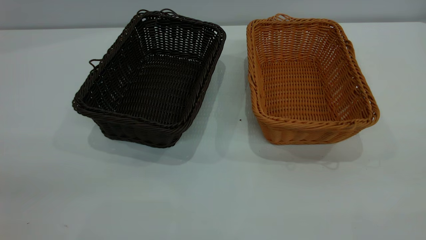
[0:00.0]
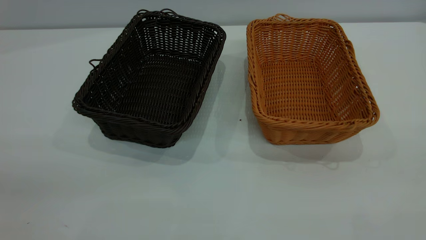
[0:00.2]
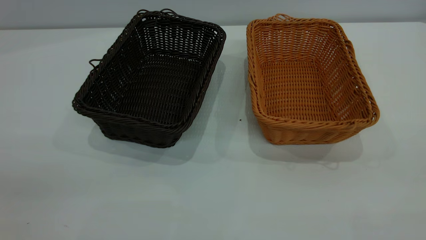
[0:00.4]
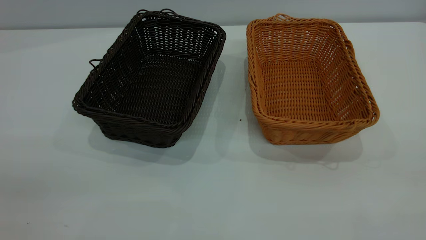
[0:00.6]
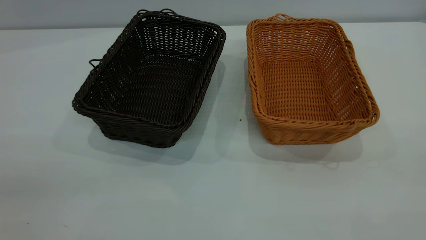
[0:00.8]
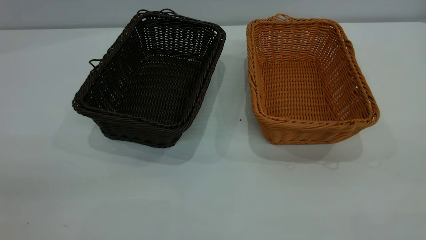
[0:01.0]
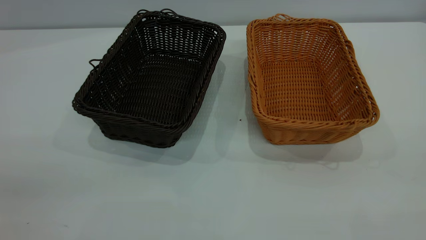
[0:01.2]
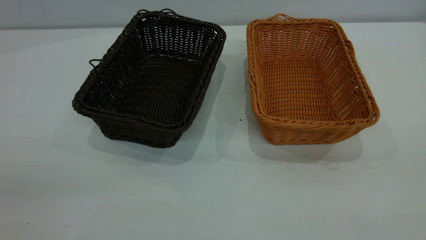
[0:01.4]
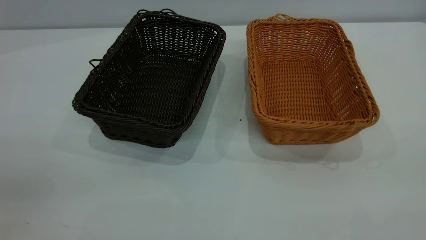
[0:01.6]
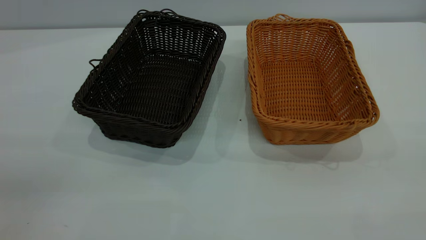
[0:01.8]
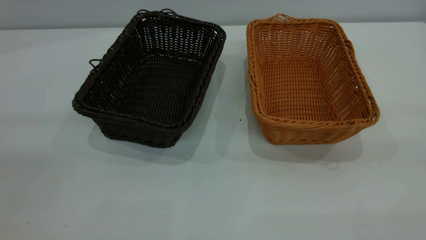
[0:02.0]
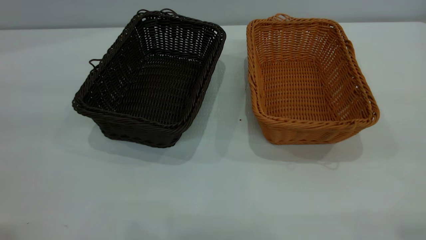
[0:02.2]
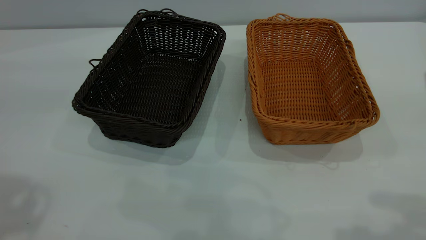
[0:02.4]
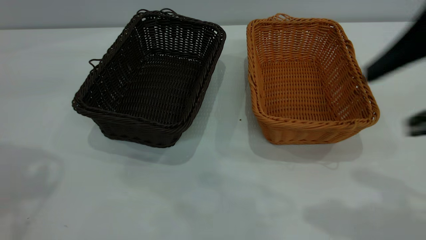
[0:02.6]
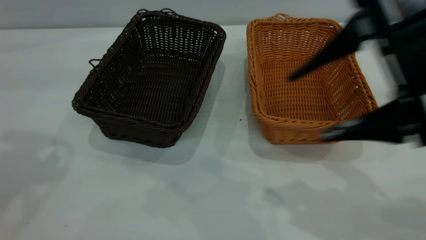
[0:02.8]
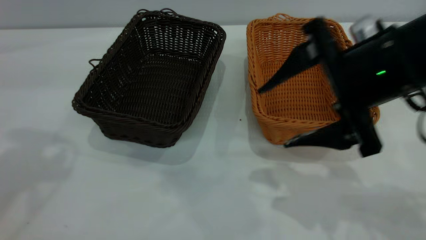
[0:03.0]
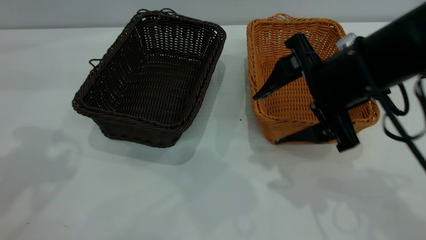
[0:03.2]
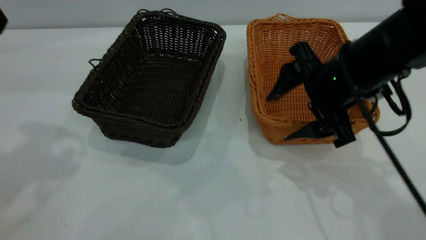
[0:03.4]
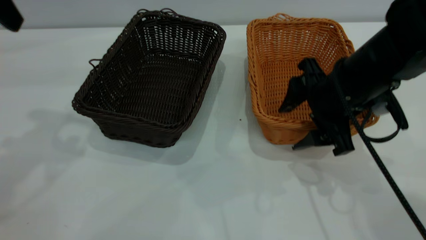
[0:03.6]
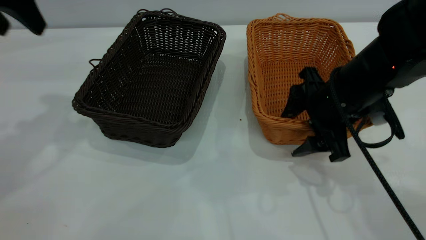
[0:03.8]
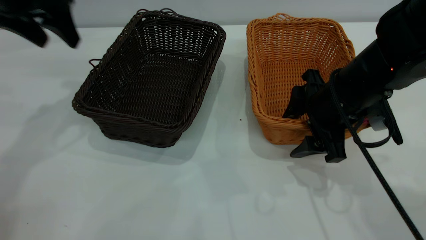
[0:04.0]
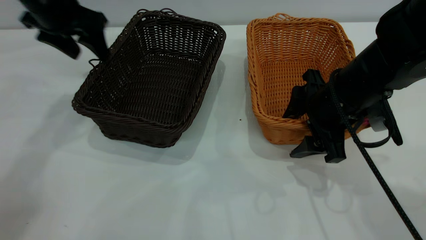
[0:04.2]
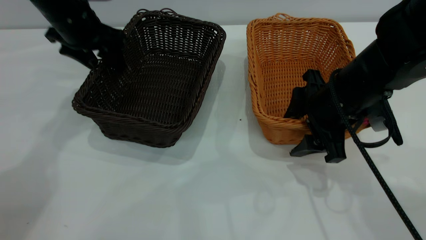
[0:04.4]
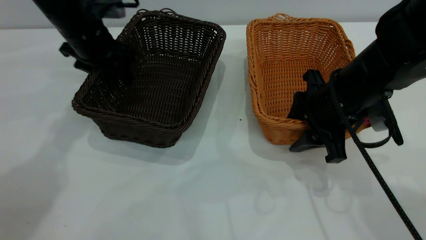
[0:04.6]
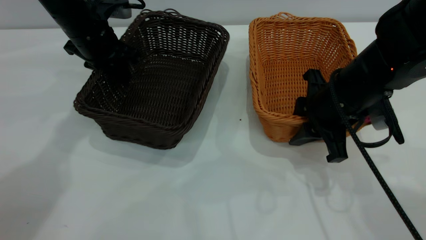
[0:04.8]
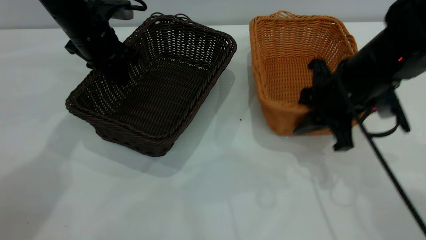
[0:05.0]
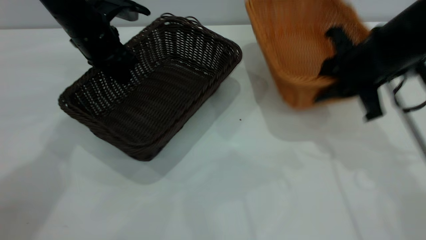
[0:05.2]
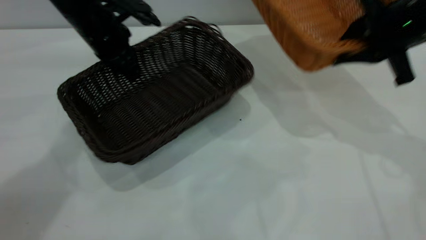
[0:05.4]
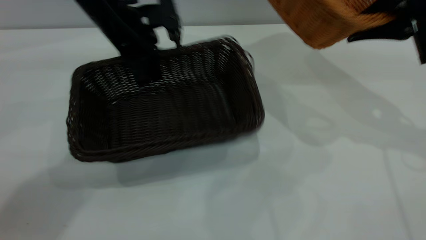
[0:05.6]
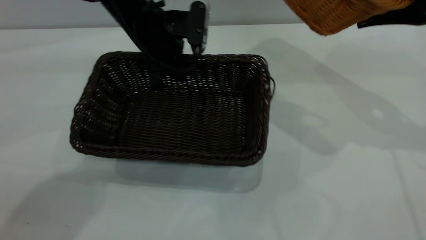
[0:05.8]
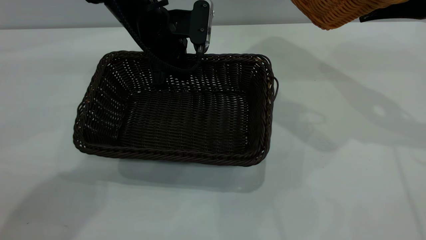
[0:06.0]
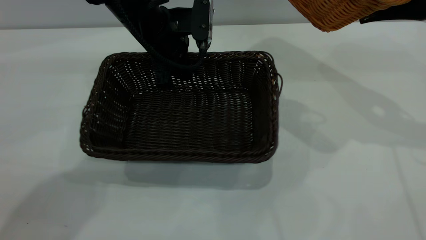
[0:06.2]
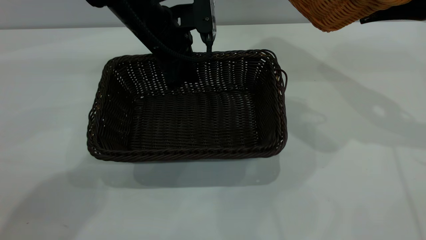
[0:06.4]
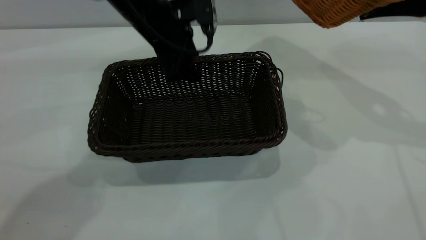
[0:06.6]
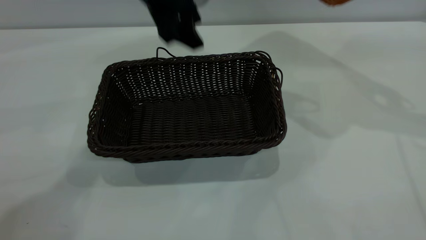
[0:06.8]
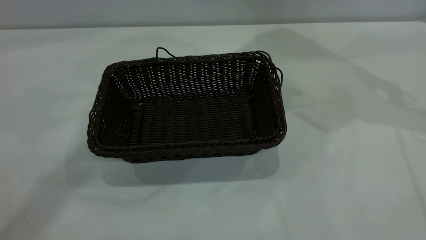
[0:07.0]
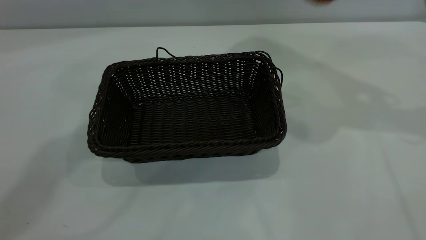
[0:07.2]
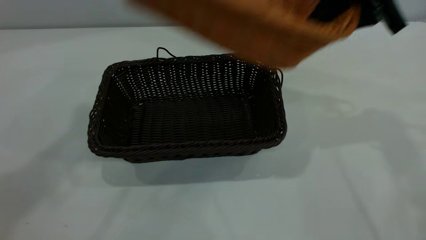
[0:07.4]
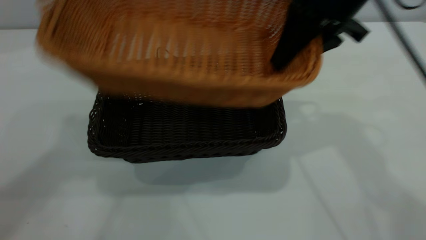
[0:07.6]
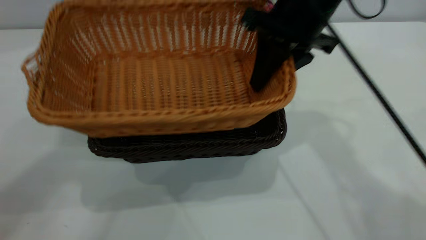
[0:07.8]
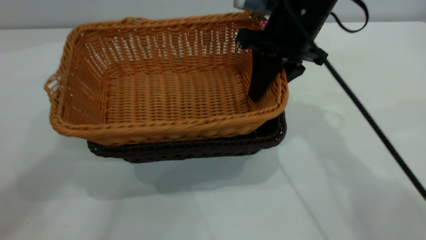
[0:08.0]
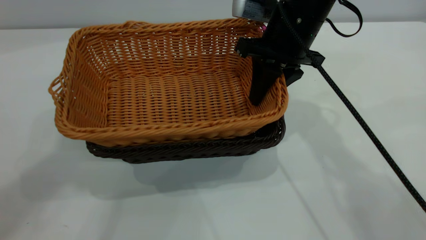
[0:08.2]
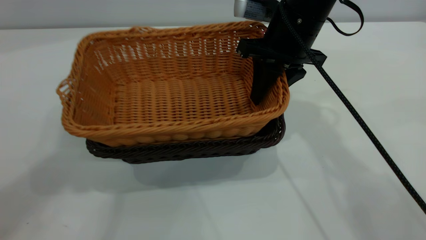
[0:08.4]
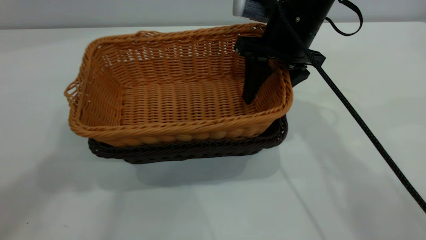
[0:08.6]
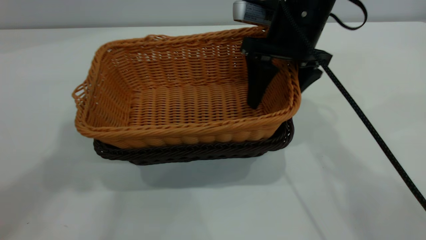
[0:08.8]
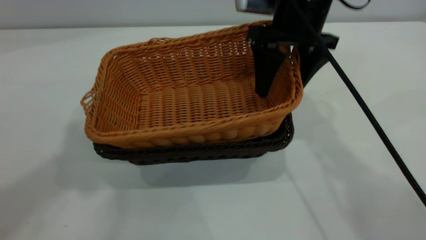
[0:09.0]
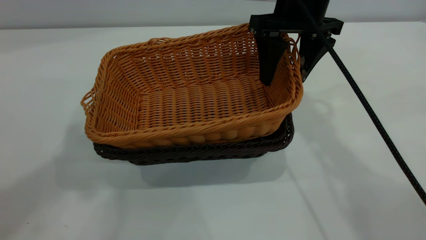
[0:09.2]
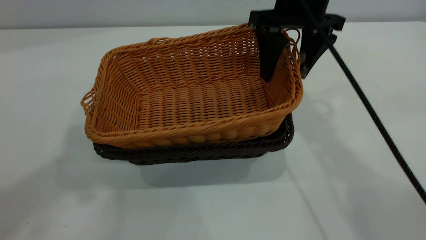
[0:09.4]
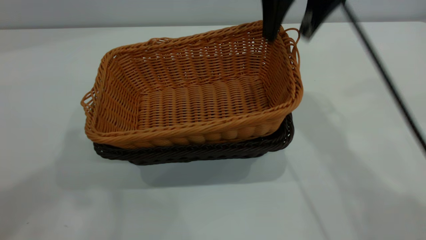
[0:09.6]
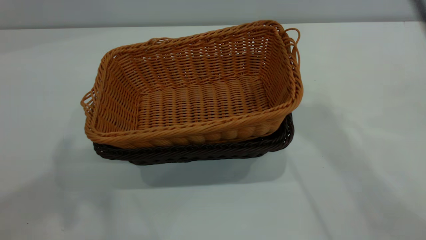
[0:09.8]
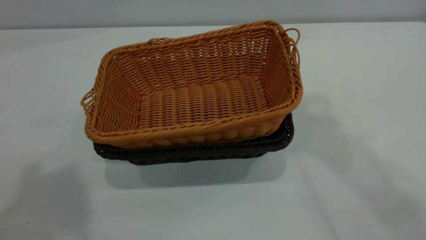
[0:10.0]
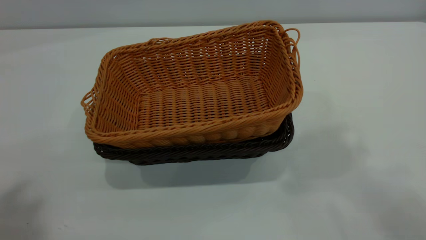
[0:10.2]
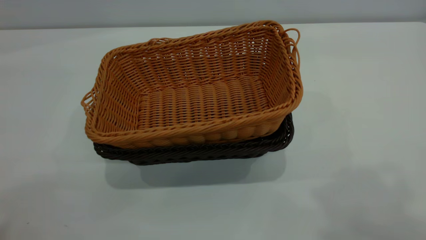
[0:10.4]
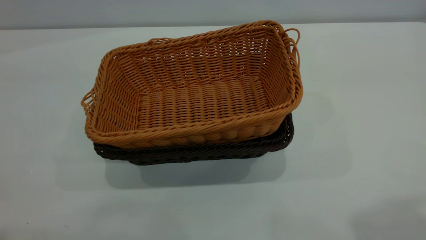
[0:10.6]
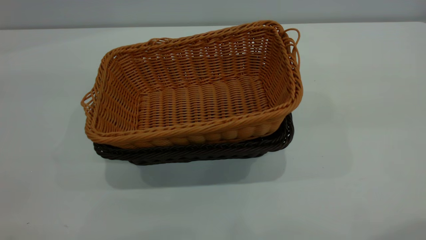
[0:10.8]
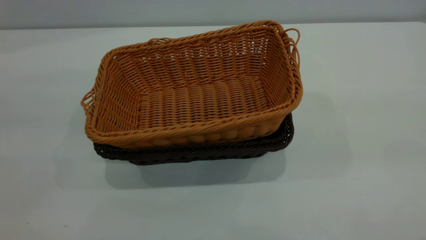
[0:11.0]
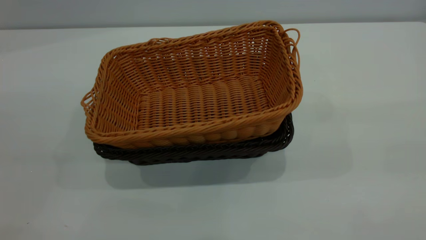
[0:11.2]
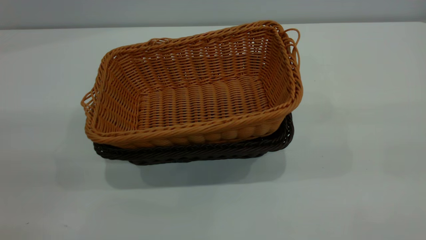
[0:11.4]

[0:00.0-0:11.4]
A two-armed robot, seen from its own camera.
Task of the whole recording: the left gripper grasp the black basket and place it in the center of the table, the right gripper grasp the brown basket and place it inside the black one.
Step, 0:00.0 to 0:05.2: Pick up the light basket with the right gripper.
Step, 0:05.4 to 0:06.6: Move the dark basket to the center of view.
Step, 0:06.8 to 0:09.6: Place the light basket on the dark basket.
0:00.0 to 0:01.4: Neither gripper changes place.
0:01.4 to 0:02.8: The right gripper travels forward, downward and to the left by roughly 25 cm.
0:02.8 to 0:04.2: The left gripper heads forward and downward, covering roughly 25 cm; the right gripper heads downward and forward, covering roughly 15 cm.
0:04.2 to 0:05.6: The right gripper shifts approximately 15 cm upward and to the right, and closes its fingers. Meanwhile the left gripper heads to the right and downward, covering roughly 10 cm, and closes.
0:05.6 to 0:07.2: The right gripper changes place by approximately 5 cm; the left gripper travels upward by about 35 cm, and opens up.
0:07.2 to 0:08.6: The left gripper moves backward and upward, about 10 cm. Meanwhile the right gripper moves to the left and downward, about 20 cm, and opens.
0:08.6 to 0:10.0: The right gripper heads upward, covering some 30 cm, while the left gripper shifts about 10 cm backward.
0:10.0 to 0:11.4: The left gripper moves downward and backward, approximately 25 cm.

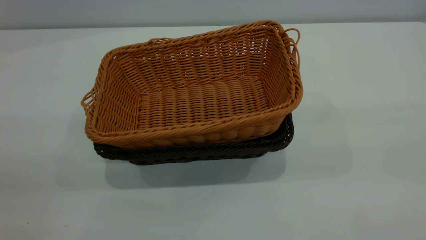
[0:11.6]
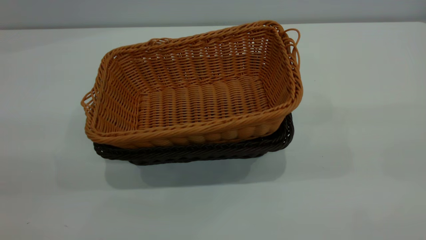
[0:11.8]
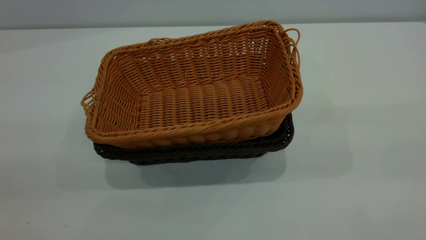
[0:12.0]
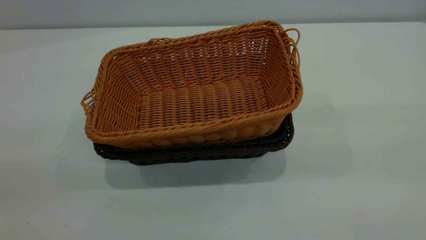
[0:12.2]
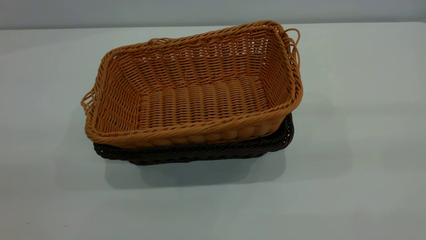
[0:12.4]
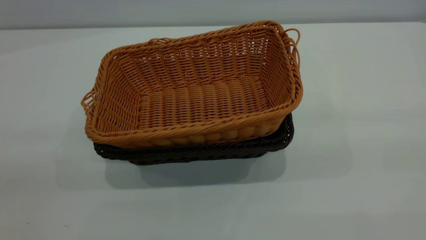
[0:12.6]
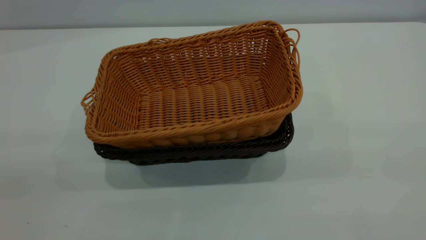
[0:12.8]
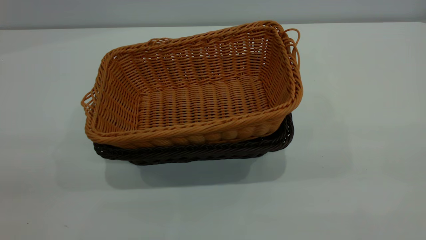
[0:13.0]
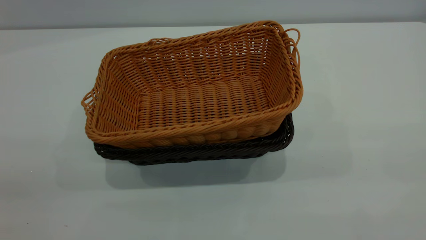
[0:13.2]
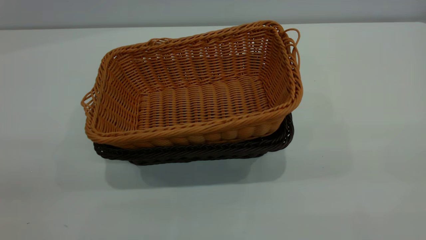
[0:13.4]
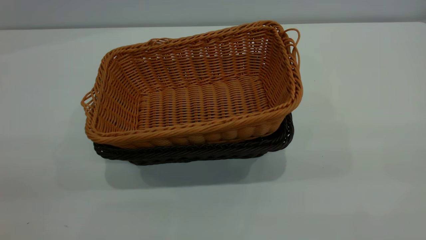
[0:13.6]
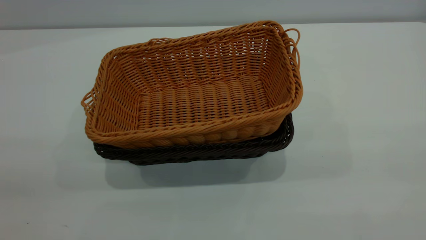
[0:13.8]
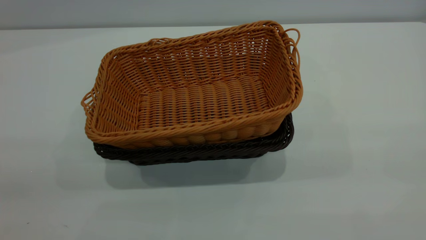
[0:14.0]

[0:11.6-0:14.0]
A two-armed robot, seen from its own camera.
Task of the whole recording: the left gripper grasp the black basket and place it in the center of the table, the right gripper grasp the brown basket and place it inside the black one.
0:12.8 to 0:14.0: Neither gripper changes place.
